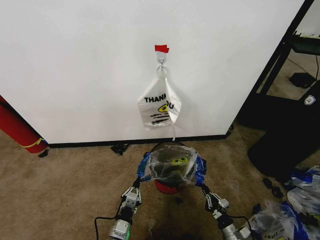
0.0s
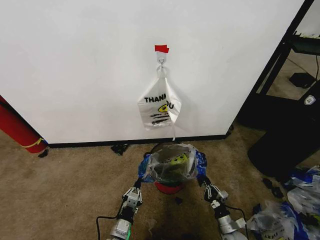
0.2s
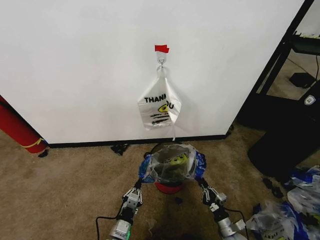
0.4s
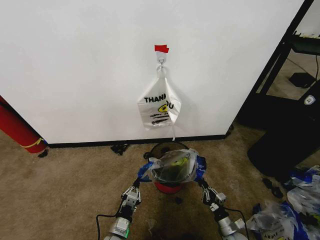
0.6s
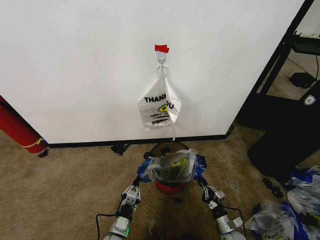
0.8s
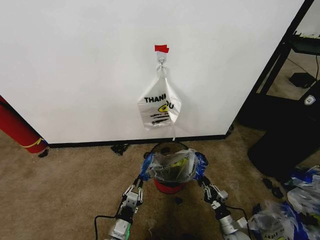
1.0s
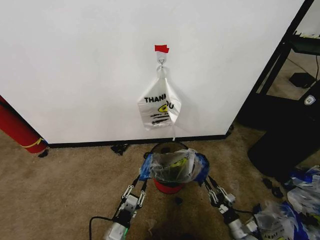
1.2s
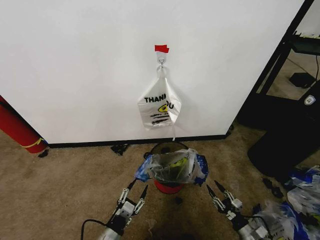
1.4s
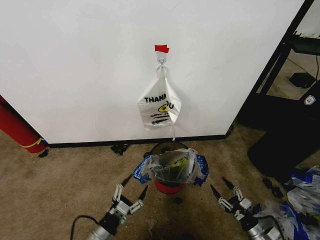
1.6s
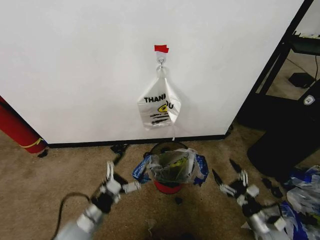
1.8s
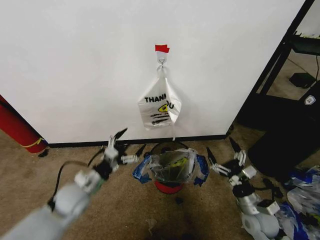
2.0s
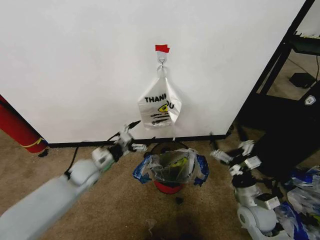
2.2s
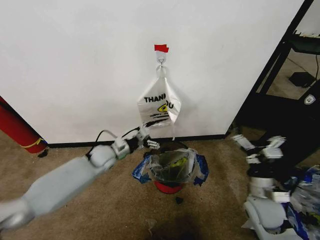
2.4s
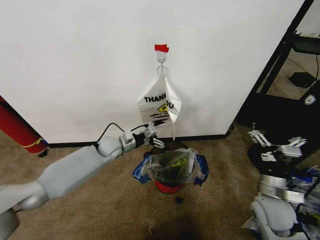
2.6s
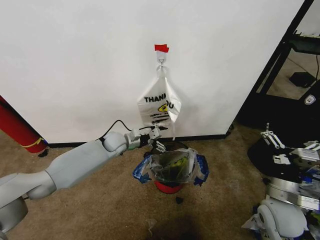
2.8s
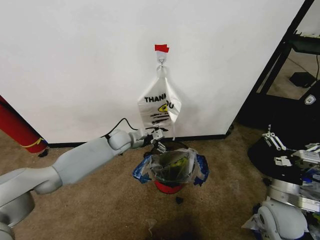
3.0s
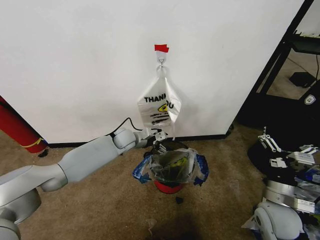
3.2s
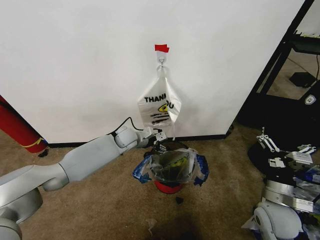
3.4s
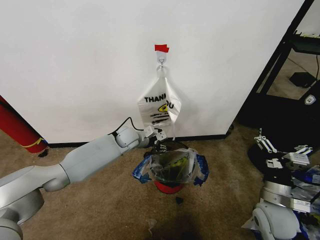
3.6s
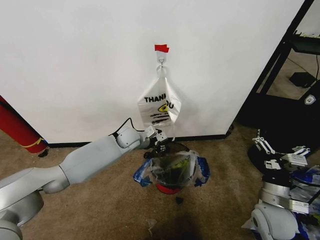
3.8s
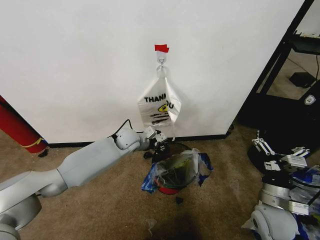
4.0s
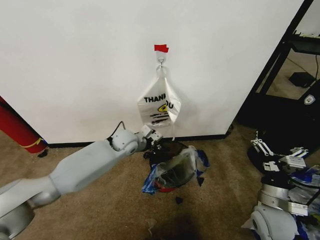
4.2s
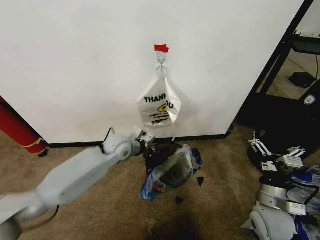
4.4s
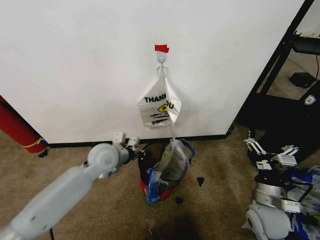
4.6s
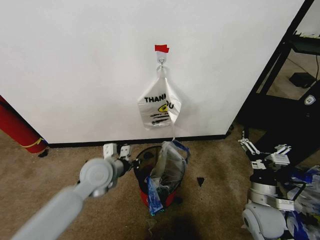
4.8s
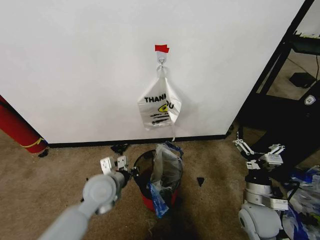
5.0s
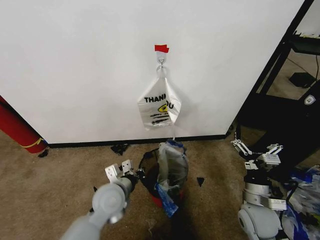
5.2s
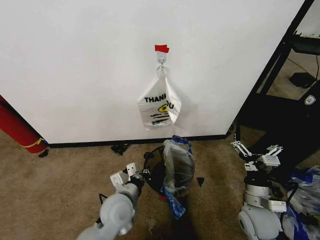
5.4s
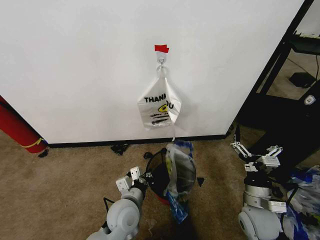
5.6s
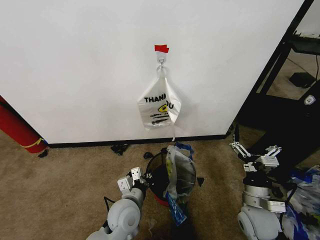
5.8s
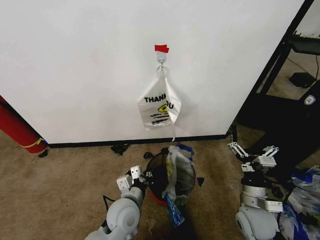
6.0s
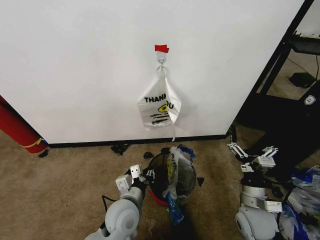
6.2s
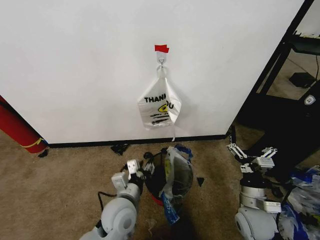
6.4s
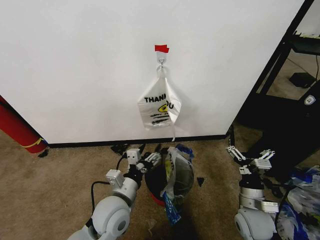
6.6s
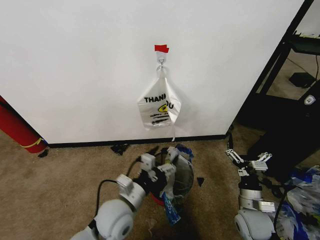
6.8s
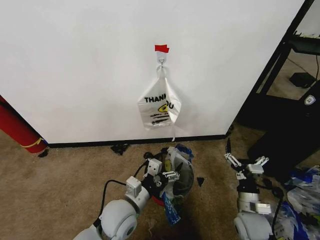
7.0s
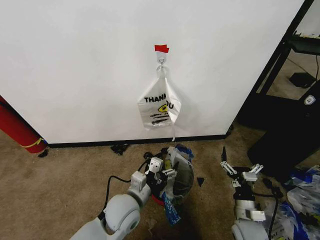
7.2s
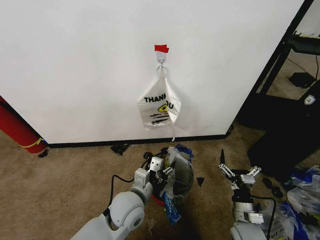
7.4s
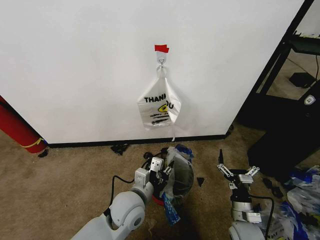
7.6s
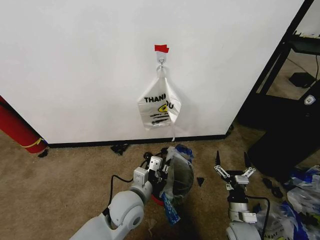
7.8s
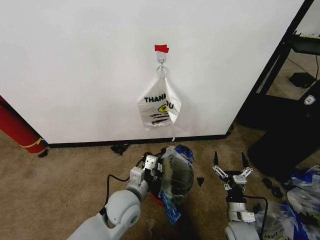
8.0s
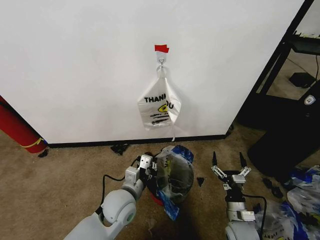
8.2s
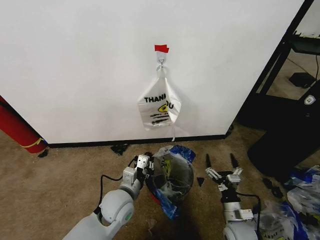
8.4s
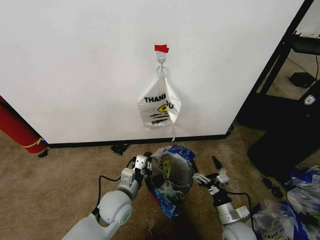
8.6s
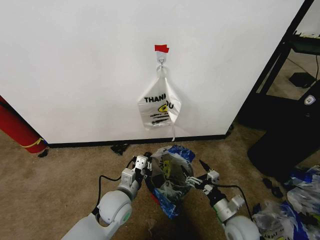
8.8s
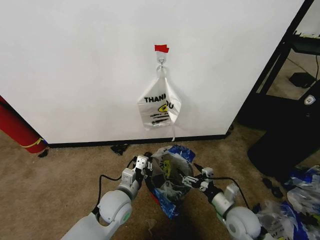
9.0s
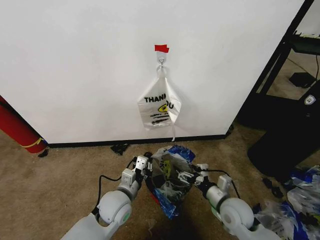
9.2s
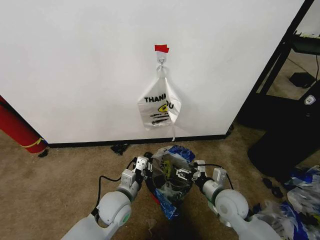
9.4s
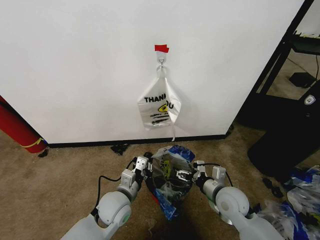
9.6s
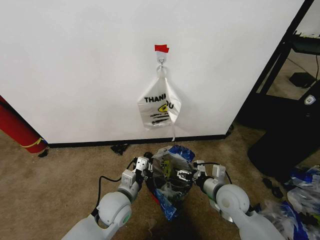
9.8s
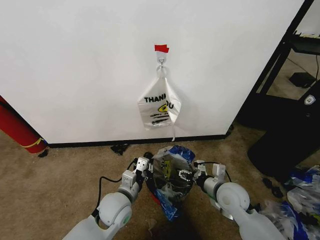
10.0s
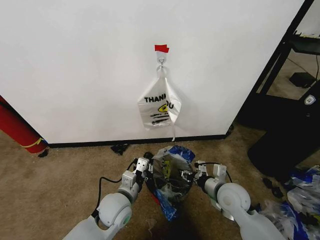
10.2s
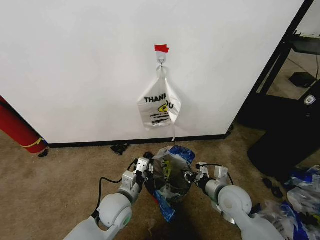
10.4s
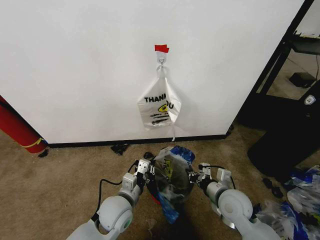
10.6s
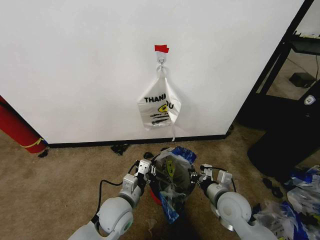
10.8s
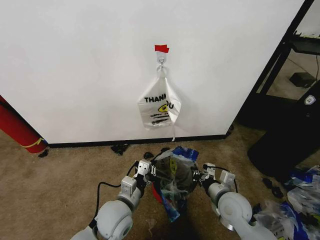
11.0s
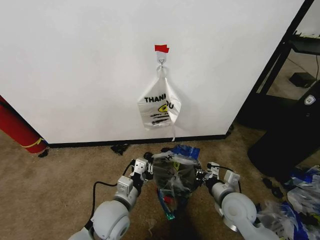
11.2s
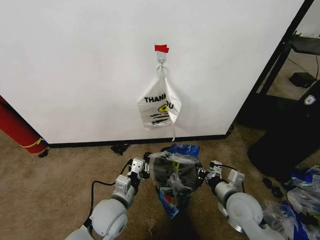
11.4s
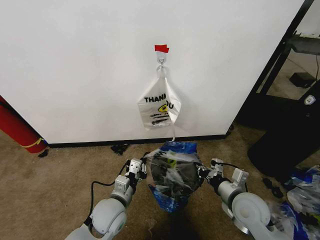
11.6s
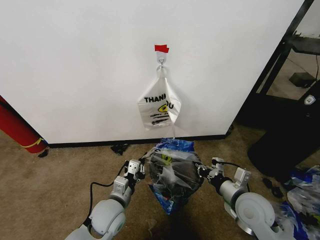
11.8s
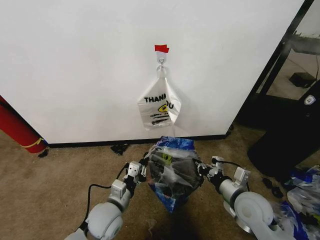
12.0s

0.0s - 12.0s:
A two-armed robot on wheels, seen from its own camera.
Task of the whole recording: Pick up the garbage bag from the wall and place it over the trash bin.
0.0s - 1.6s: The left gripper shifts approximately 10 cm to the left and upward, and opens; the right gripper is displaced to the right and upward by approximately 10 cm, and opens its fingers.
1.6s - 3.0s: The left gripper heads forward, covering roughly 35 cm. The right gripper goes about 25 cm upward.
3.0s - 4.4s: The left gripper travels backward by approximately 10 cm, and closes.
4.4s - 6.0s: The left gripper heads backward and downward, covering about 20 cm.
6.0s - 7.6s: The left gripper opens, then closes once more; the right gripper goes approximately 10 cm downward.
7.6s - 9.0s: The left gripper shifts by about 5 cm, and closes. The right gripper ends up about 5 cm from where it was.
9.0s - 10.4s: The right gripper shifts approximately 5 cm upward, and closes.
10.4s - 12.0s: The grippers stay close to where they were, moving slightly.

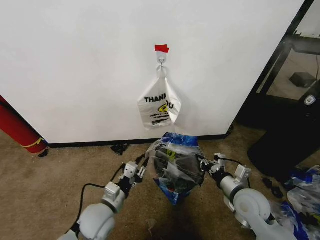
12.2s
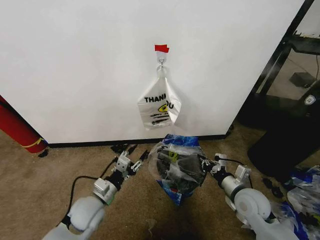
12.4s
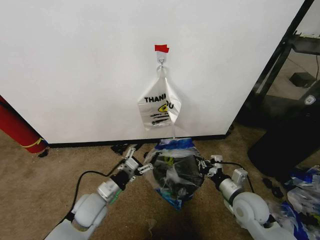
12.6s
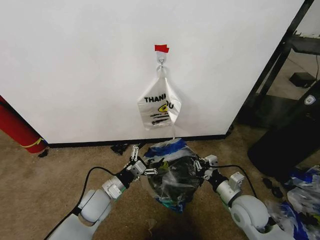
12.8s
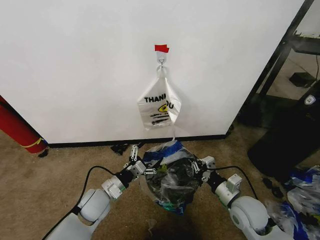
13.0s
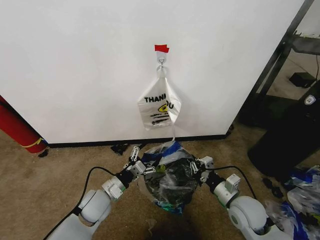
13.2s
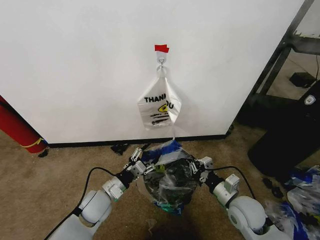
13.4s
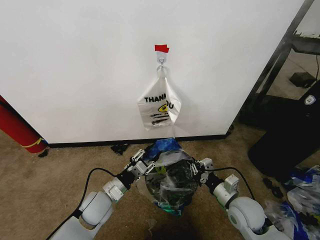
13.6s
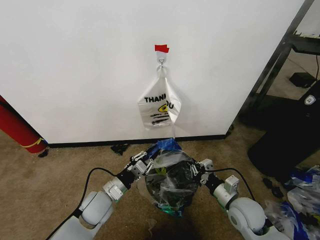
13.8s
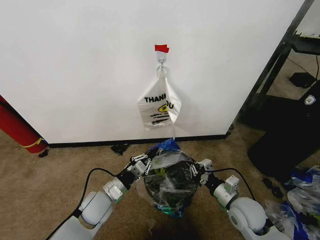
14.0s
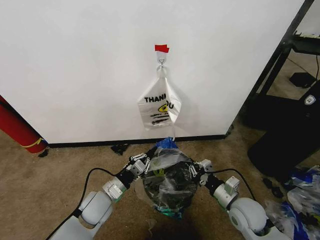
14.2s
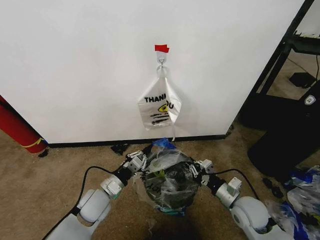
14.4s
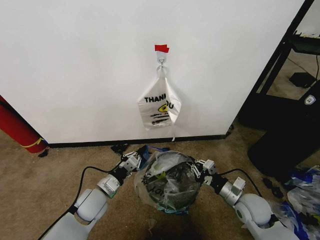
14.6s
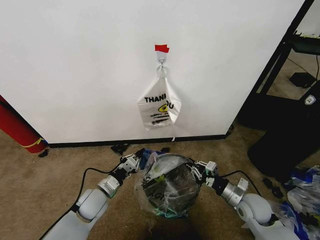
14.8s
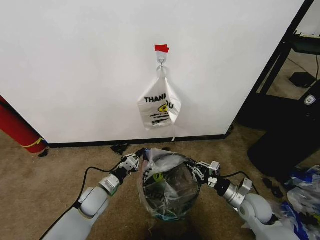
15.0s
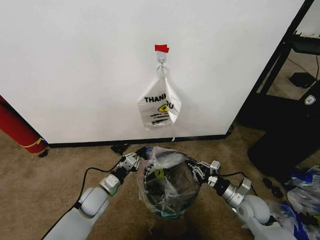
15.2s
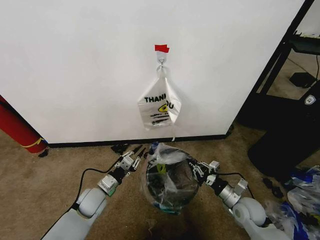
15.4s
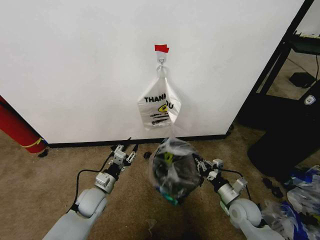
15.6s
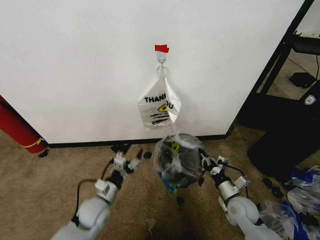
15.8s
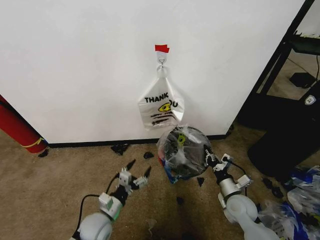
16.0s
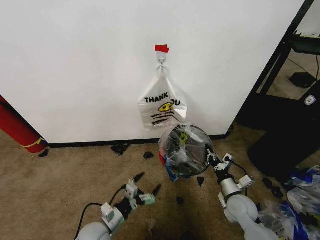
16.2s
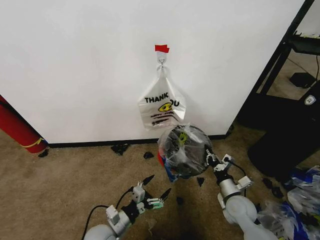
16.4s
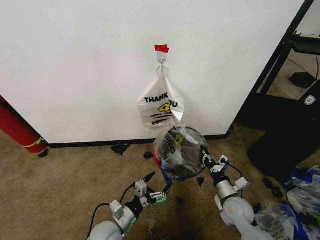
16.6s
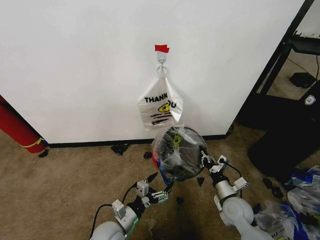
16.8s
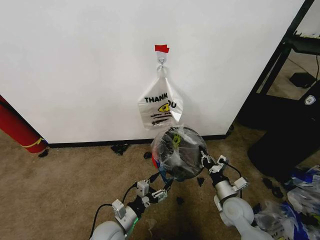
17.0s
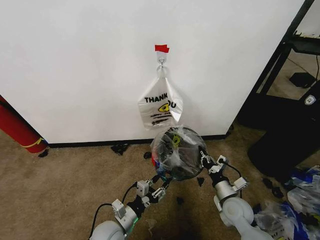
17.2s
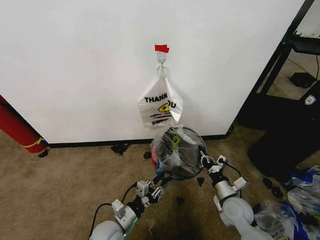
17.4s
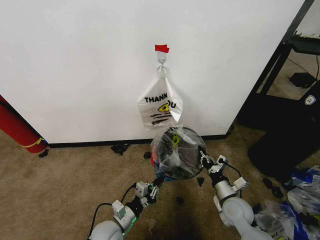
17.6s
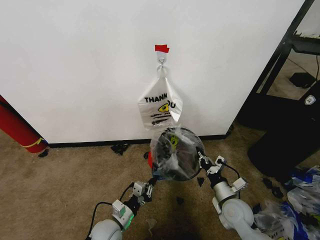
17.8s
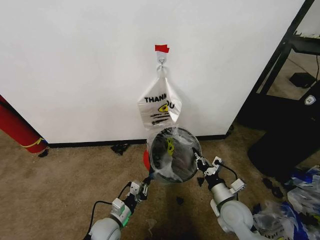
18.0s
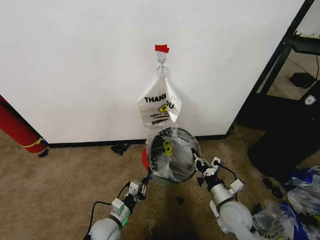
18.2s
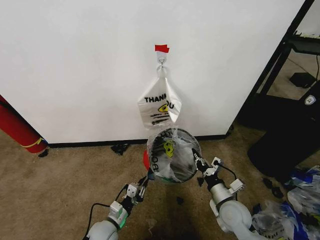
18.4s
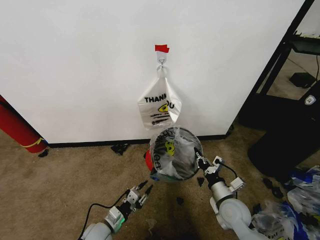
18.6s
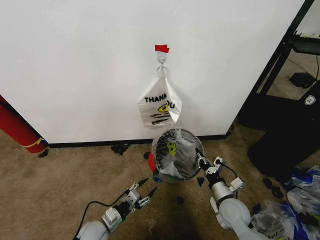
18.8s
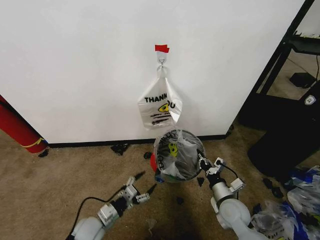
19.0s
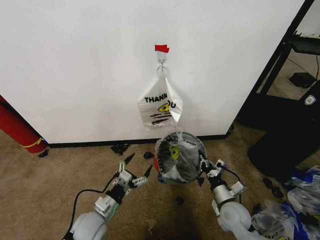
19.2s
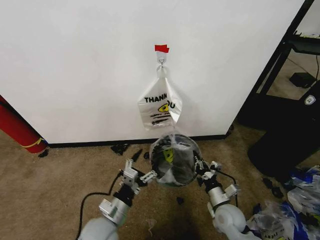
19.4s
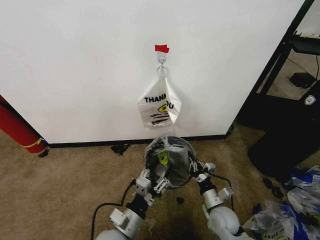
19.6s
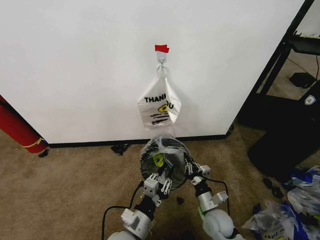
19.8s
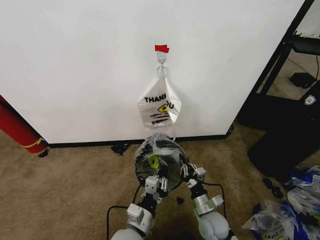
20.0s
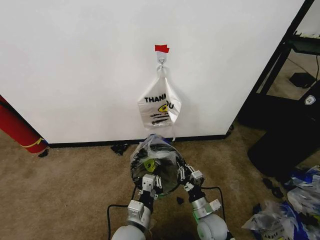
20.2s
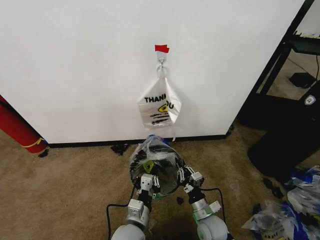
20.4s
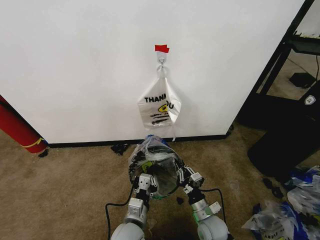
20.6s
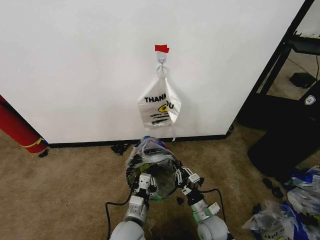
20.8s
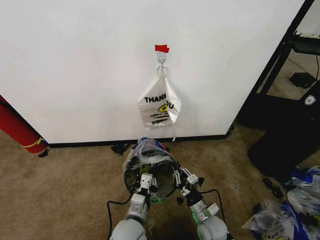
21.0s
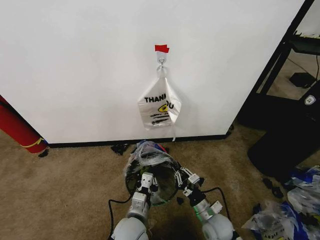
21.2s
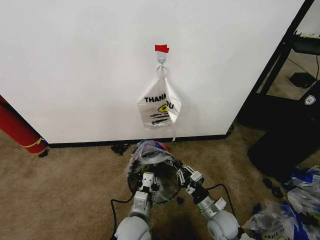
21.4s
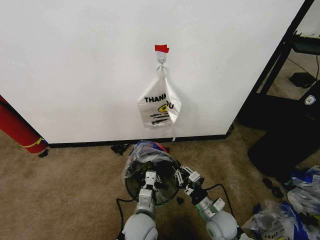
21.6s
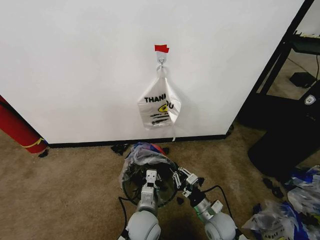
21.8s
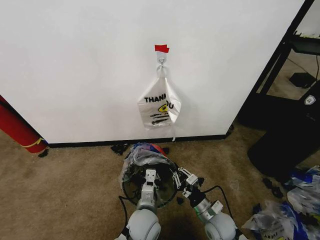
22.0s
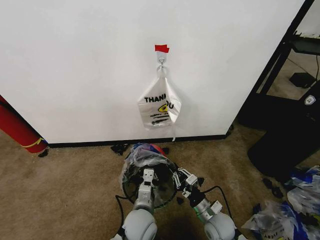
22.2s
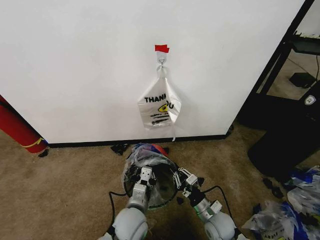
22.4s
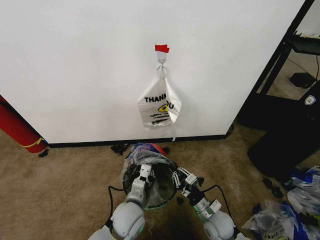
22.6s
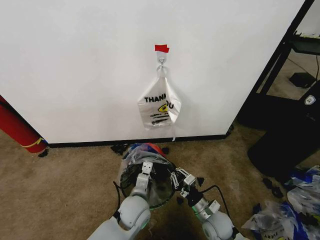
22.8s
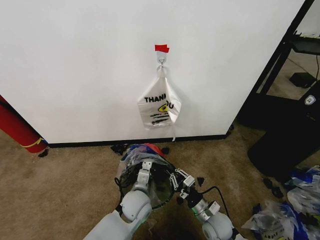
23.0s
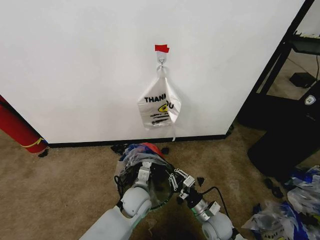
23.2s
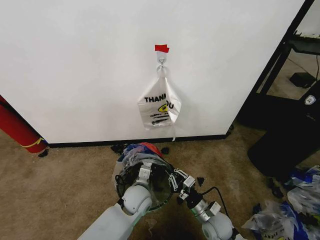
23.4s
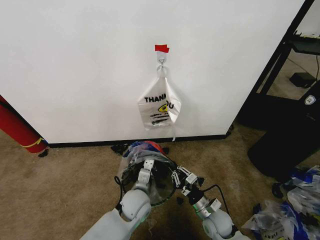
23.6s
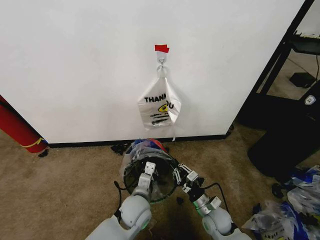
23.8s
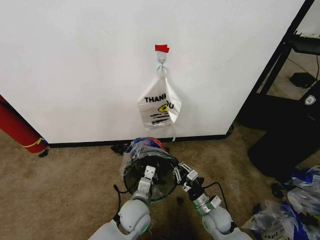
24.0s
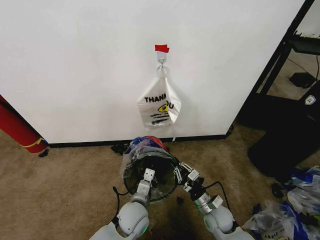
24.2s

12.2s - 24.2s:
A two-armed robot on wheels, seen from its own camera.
Task of the whole recording: Pick up the garbage bag from the wall and place it over the trash bin.
12.2s - 13.8s: The left gripper opens and closes again.
13.8s - 15.2s: The left gripper shifts by about 5 cm, while the right gripper shifts approximately 5 cm to the right.
15.2s - 16.6s: The left gripper is displaced backward and to the right by about 15 cm, and opens up.
16.6s - 18.2s: The left gripper moves some 5 cm, and closes up.
18.2s - 19.8s: The right gripper heads downward, covering some 5 cm; the left gripper shifts some 15 cm upward, to the right and backward, and opens, then closes once more.
21.2s - 22.6s: The grippers make only small movements.
